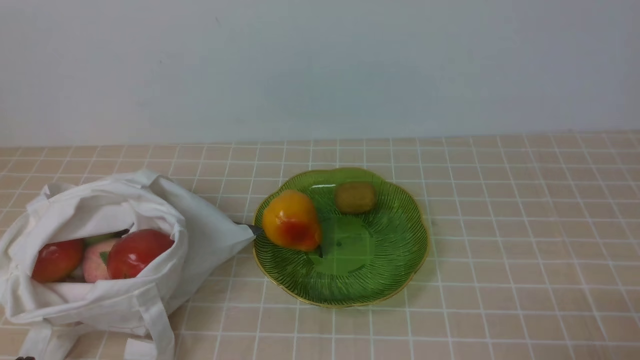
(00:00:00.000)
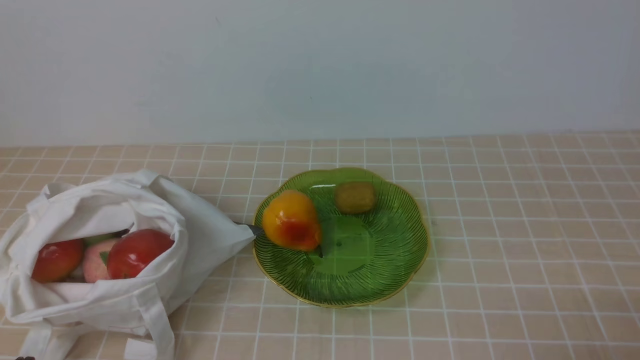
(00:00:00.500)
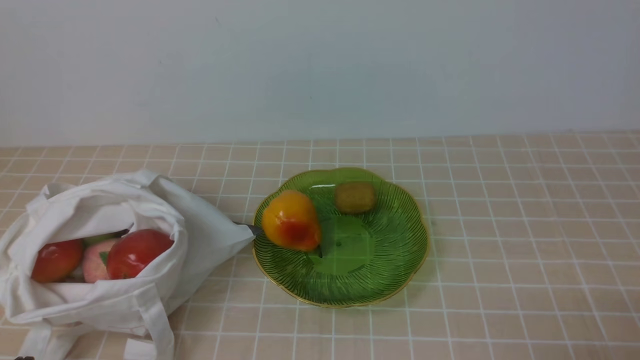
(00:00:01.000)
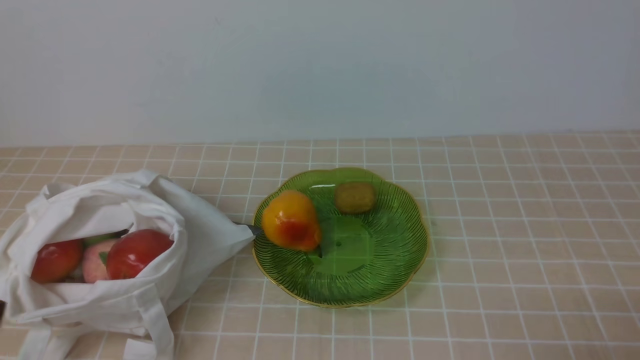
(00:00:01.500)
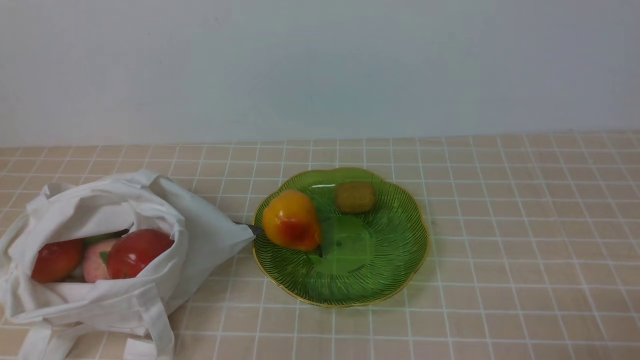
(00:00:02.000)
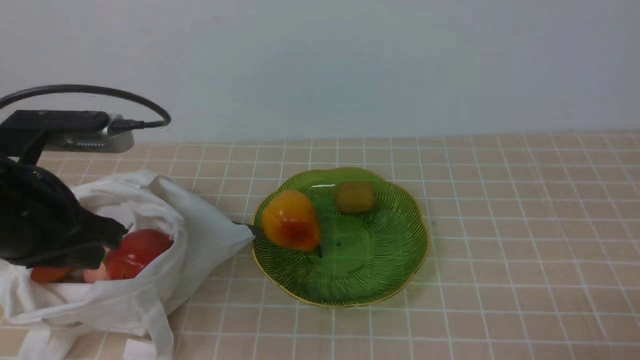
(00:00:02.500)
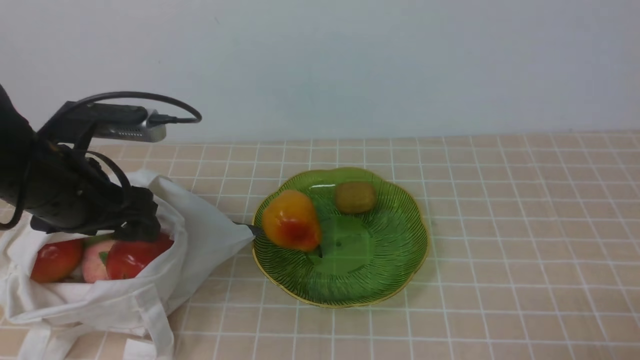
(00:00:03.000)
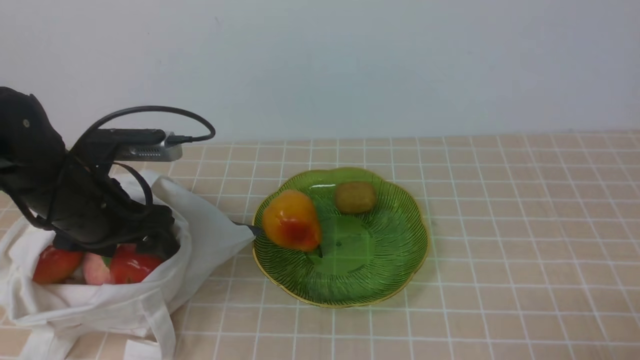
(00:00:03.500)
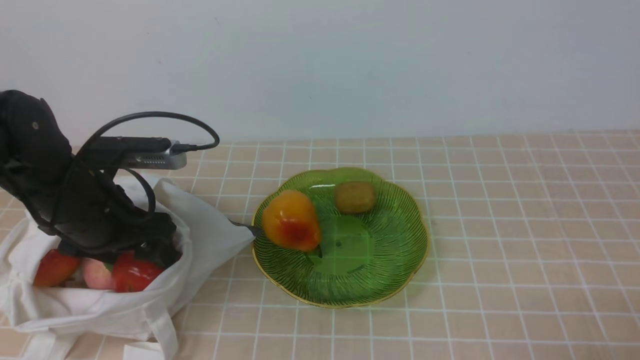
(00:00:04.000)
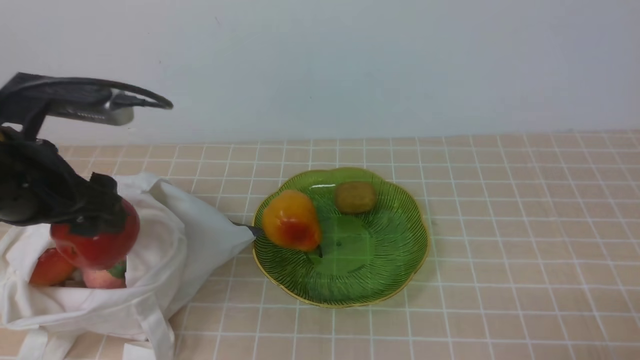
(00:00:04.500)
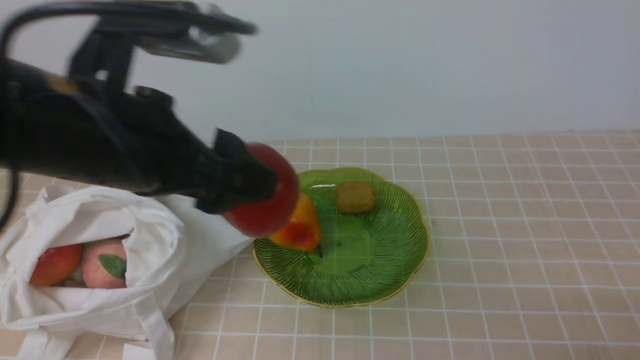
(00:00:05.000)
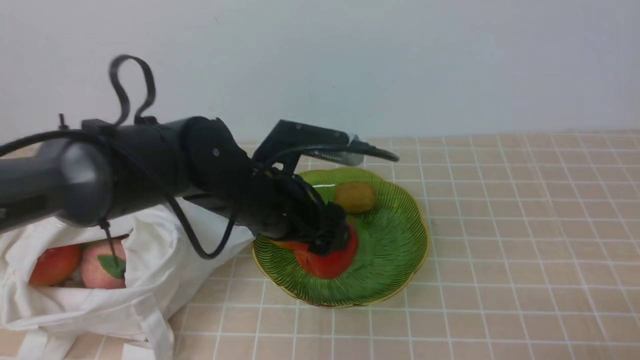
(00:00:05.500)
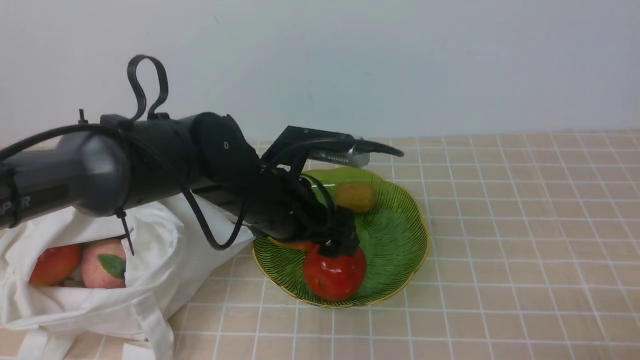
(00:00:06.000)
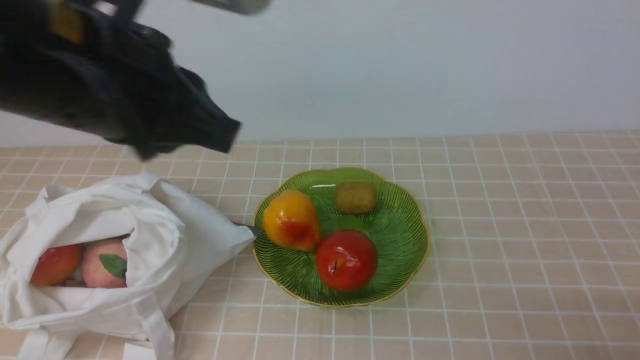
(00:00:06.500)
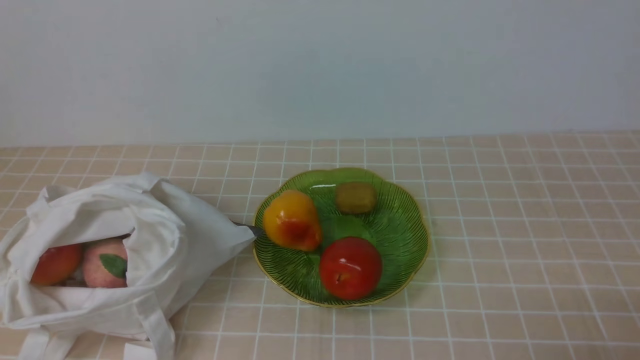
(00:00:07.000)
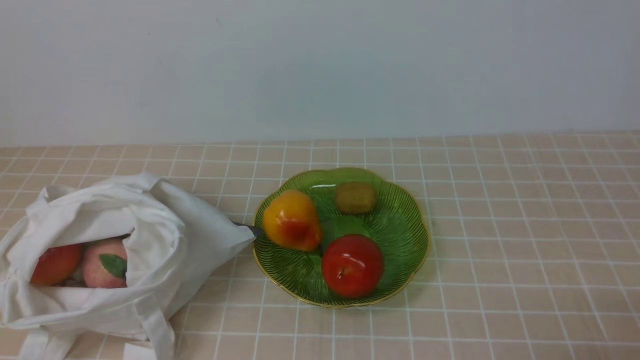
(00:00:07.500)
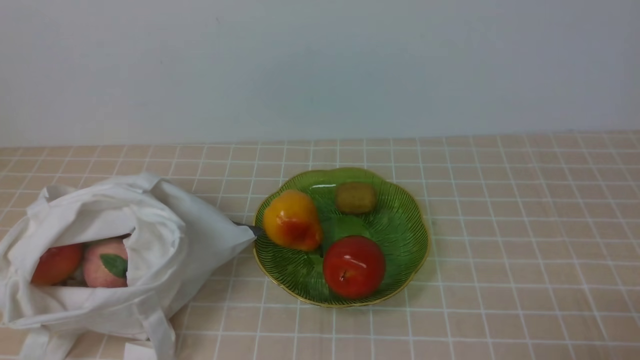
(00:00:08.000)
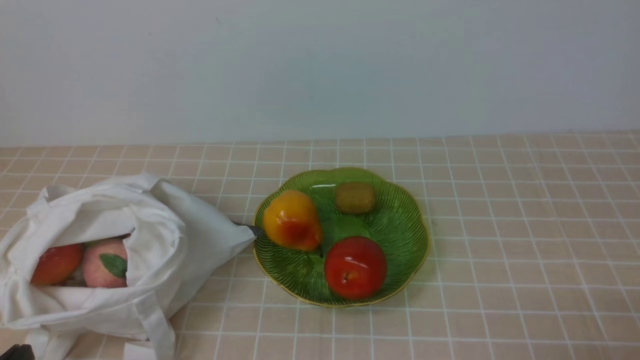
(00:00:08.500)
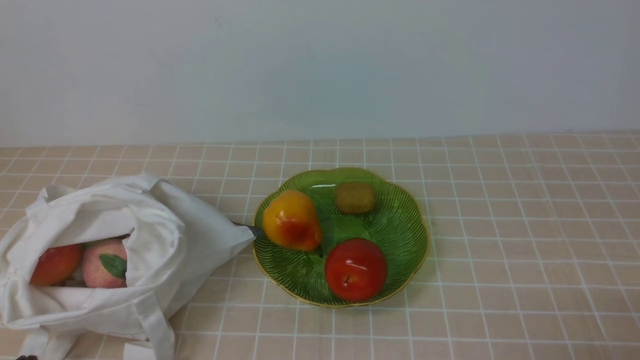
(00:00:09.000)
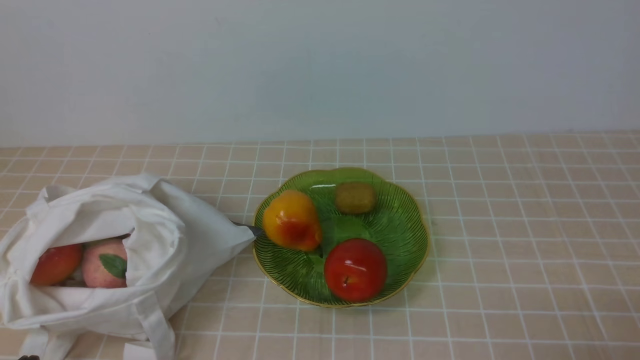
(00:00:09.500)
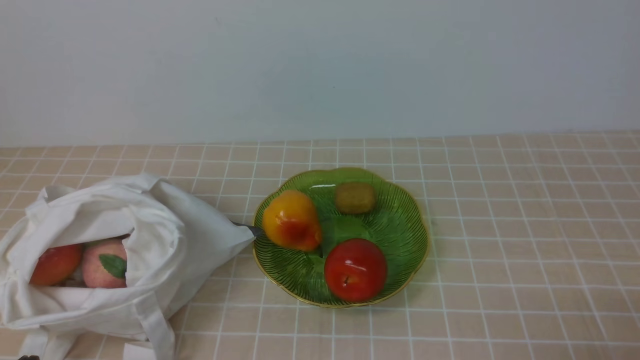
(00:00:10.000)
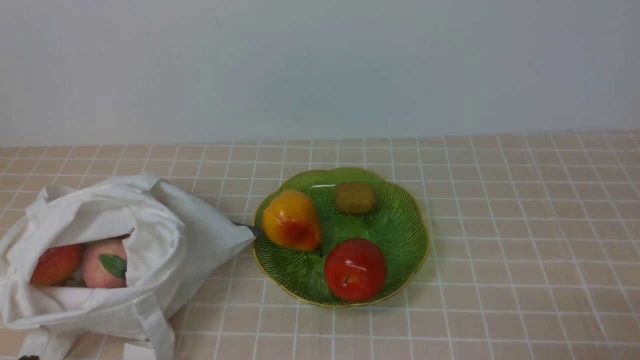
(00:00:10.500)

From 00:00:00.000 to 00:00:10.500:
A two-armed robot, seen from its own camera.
Step, from 00:00:00.000 to 00:00:04.000: use the left arm to grab an apple from the bag.
Step, from 00:00:04.500 to 00:00:06.000: use the left arm to put the apple into the empty plate on the right.
From 00:00:02.000 to 00:00:04.000: The left gripper moves forward and downward, about 20 cm, and opens.
From 00:00:04.000 to 00:00:06.500: The left gripper moves up and down over roughly 20 cm, changing direction 2 times, and closes up.
From 00:00:06.500 to 00:00:08.500: The left gripper heads downward, backward and to the left, covering some 30 cm.
From 00:00:08.500 to 00:00:10.500: Both grippers stay about where they are.

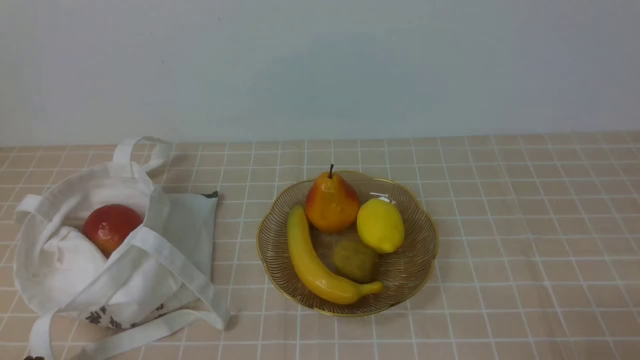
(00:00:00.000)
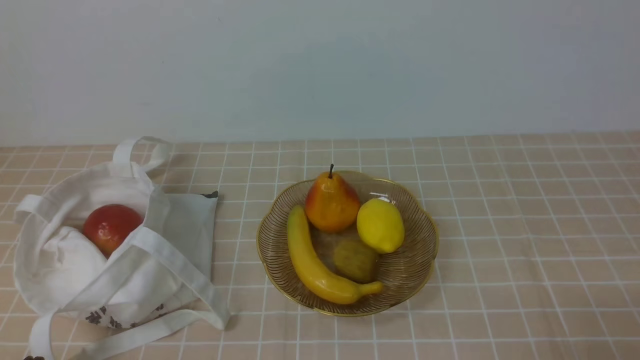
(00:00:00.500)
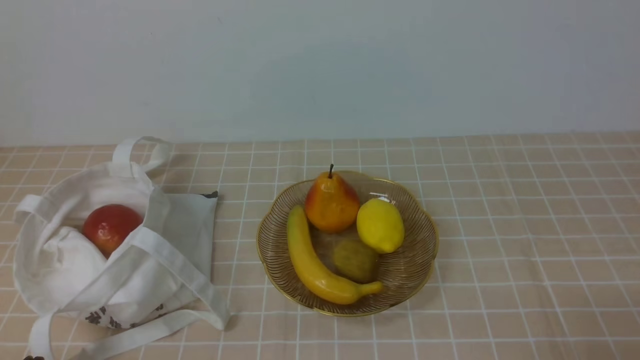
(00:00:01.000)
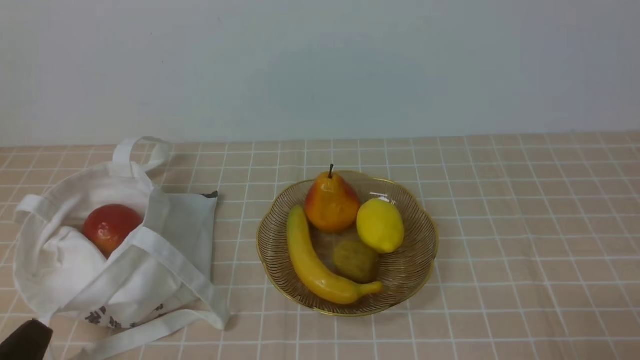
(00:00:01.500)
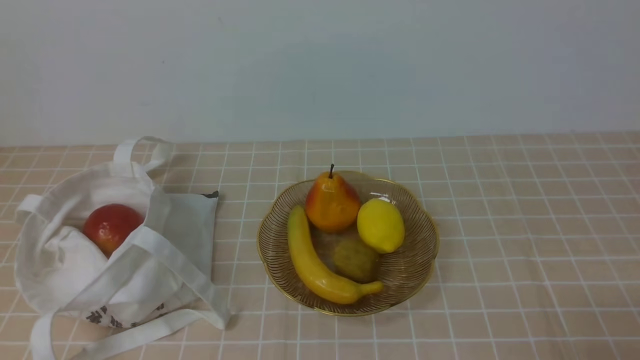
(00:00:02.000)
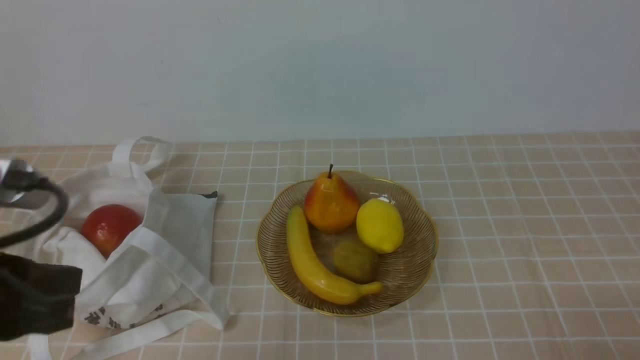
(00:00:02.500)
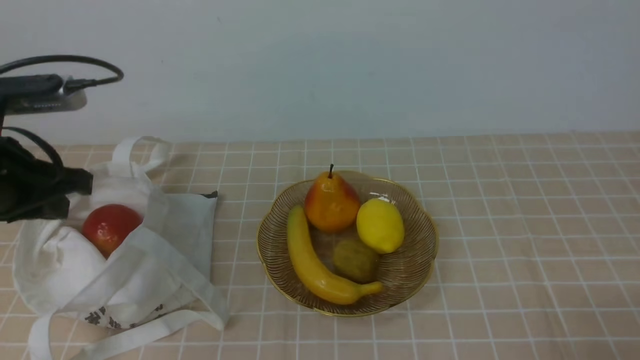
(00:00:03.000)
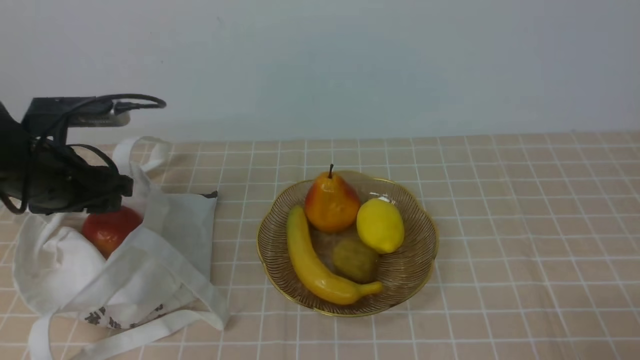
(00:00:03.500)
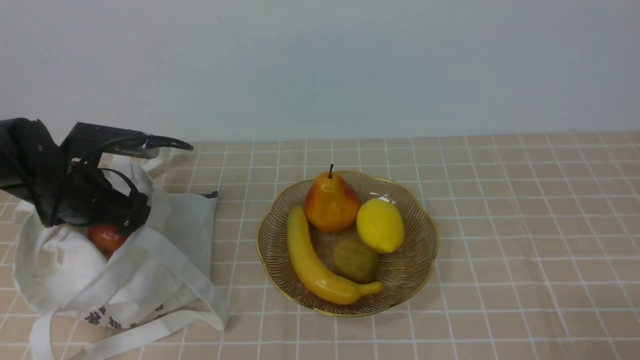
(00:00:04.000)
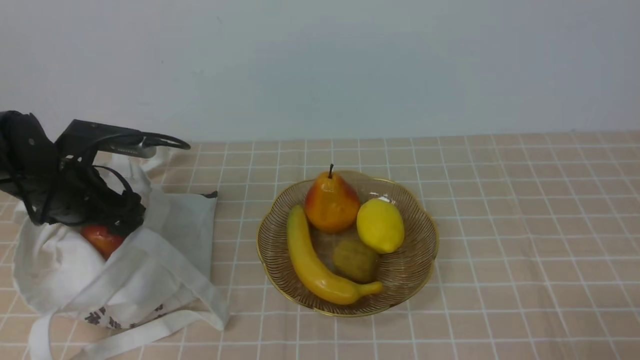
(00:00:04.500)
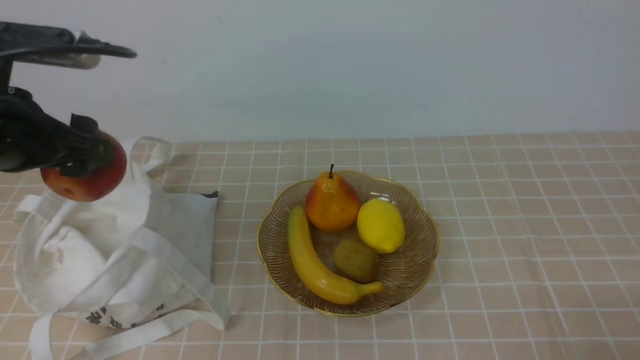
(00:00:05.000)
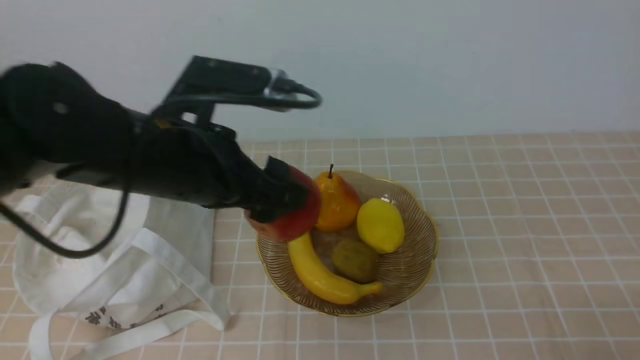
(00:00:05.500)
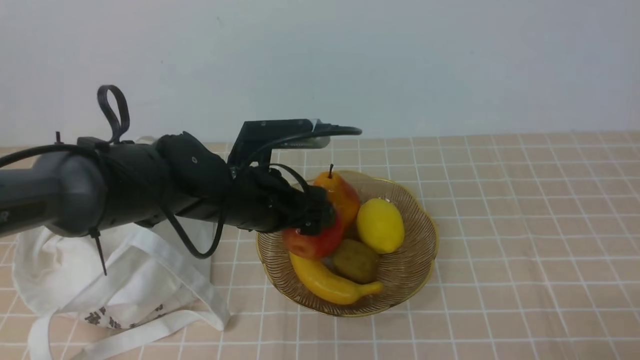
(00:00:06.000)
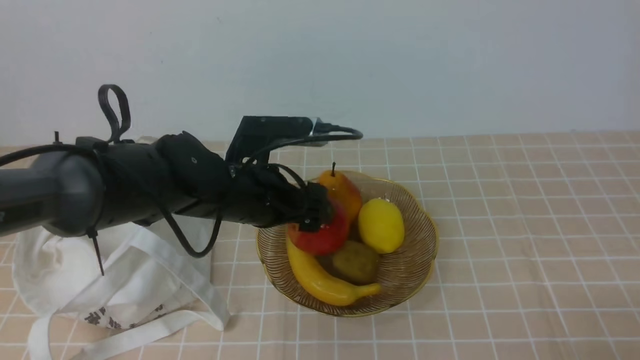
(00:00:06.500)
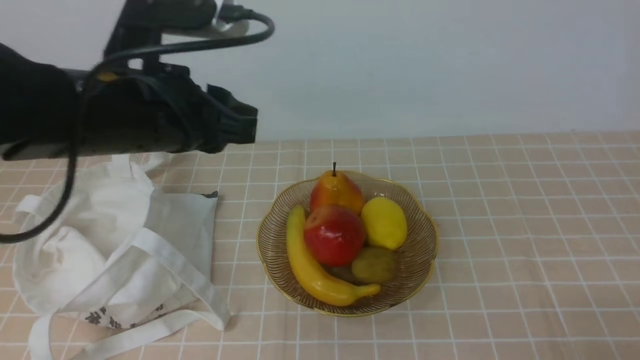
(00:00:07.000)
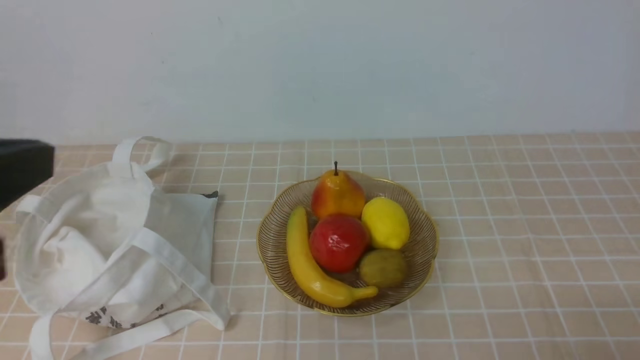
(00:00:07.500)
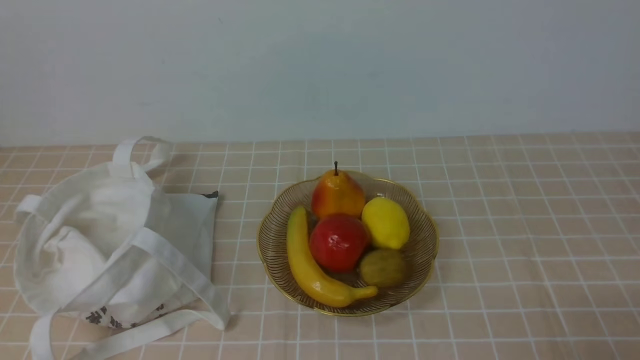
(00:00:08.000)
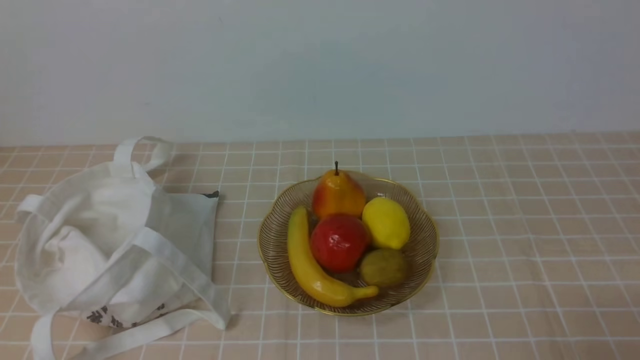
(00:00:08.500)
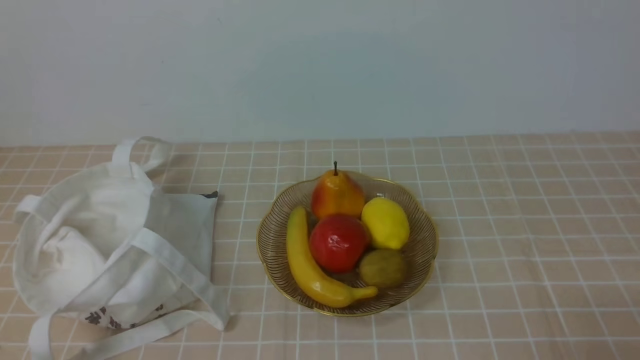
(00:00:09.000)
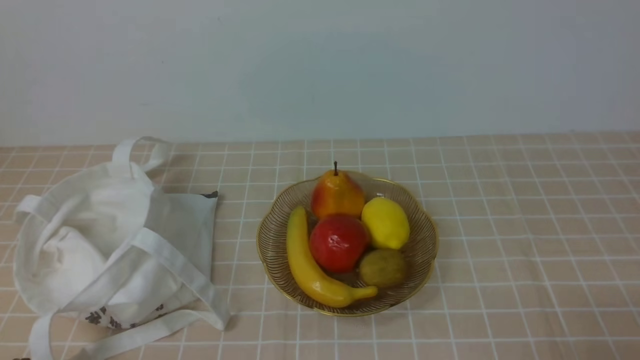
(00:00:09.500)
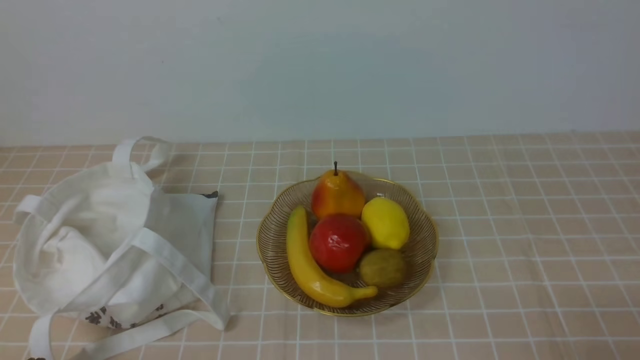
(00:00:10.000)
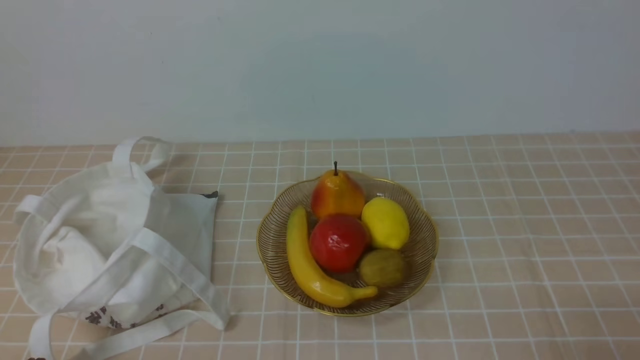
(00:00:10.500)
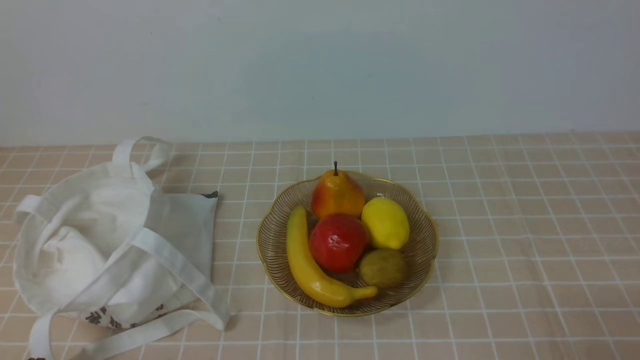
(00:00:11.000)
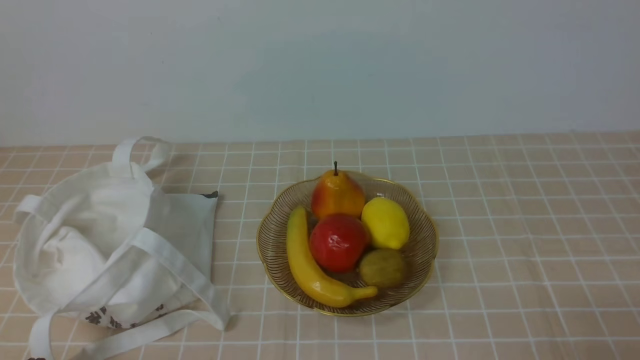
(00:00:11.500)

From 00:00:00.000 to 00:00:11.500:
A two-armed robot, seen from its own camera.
Step, from 00:00:00.000 to 00:00:04.000: use the left arm to grab a pomegranate from the bag.
Step, from 00:00:05.000 to 00:00:06.000: use the left arm to put the pomegranate into the empty plate on the right.
From 00:00:02.000 to 00:00:04.000: The left gripper travels forward and downward by some 35 cm, and opens its fingers.
From 00:00:04.000 to 00:00:06.000: The left gripper shifts some 20 cm to the right.
From 00:00:06.000 to 00:00:07.500: The left gripper is displaced backward, upward and to the left by about 35 cm, and closes up.
From 00:00:07.500 to 00:00:09.500: The left gripper shifts approximately 25 cm downward.
From 00:00:09.500 to 00:00:11.500: The two grippers keep their place.
